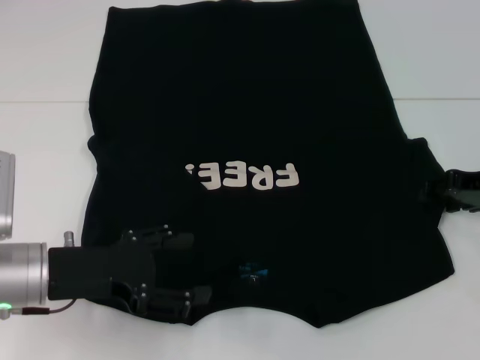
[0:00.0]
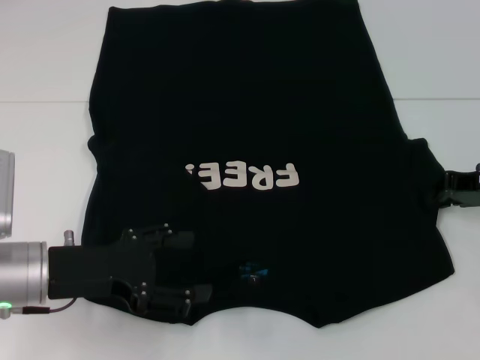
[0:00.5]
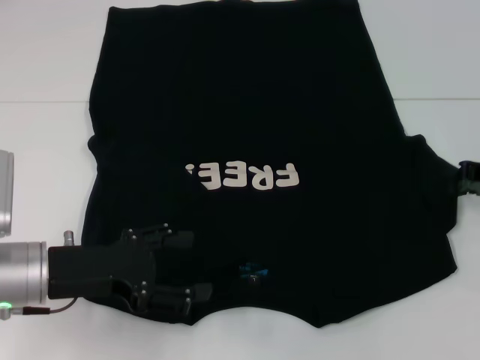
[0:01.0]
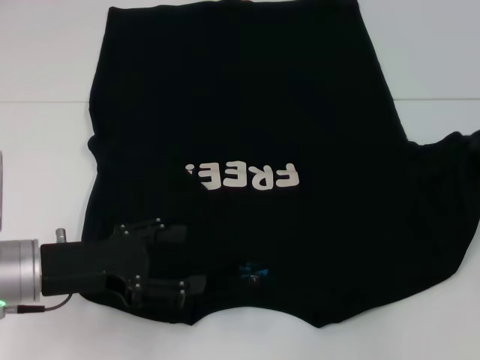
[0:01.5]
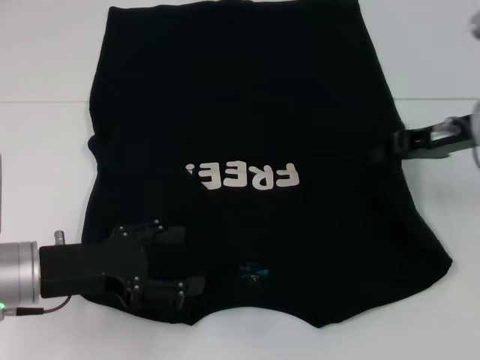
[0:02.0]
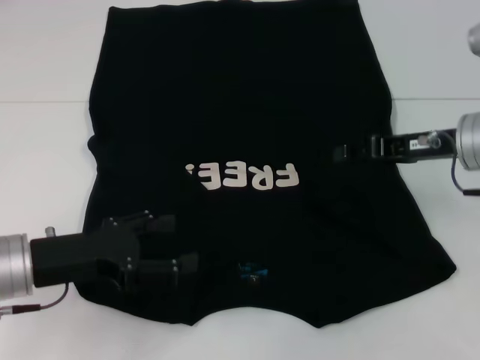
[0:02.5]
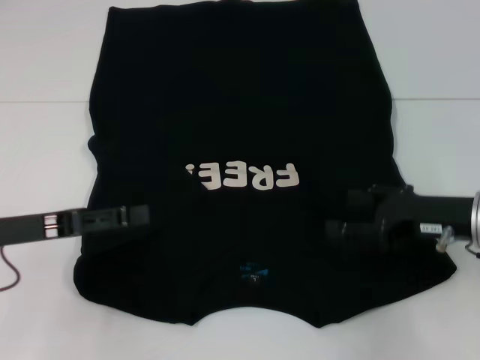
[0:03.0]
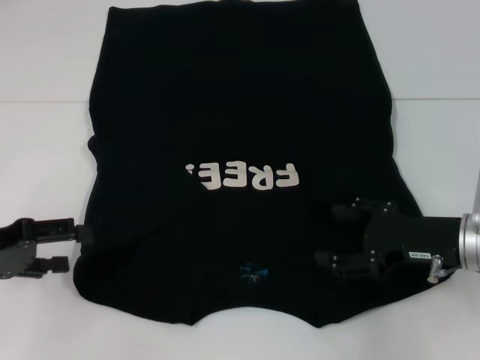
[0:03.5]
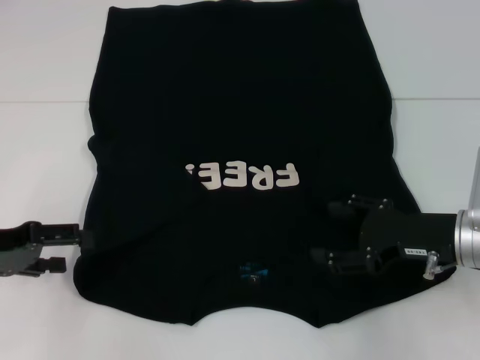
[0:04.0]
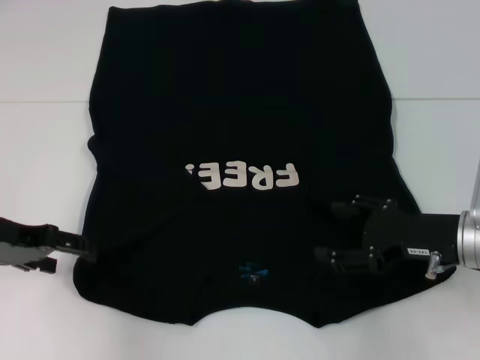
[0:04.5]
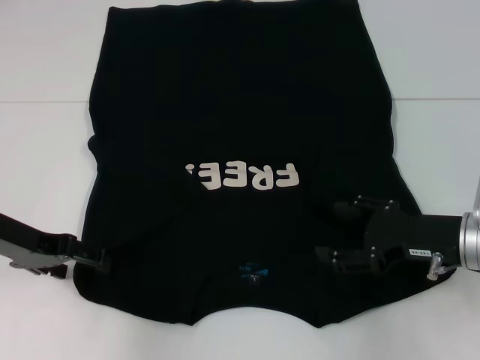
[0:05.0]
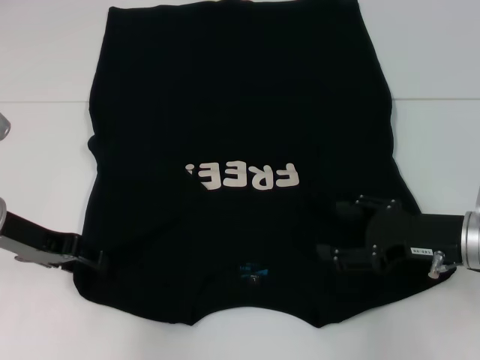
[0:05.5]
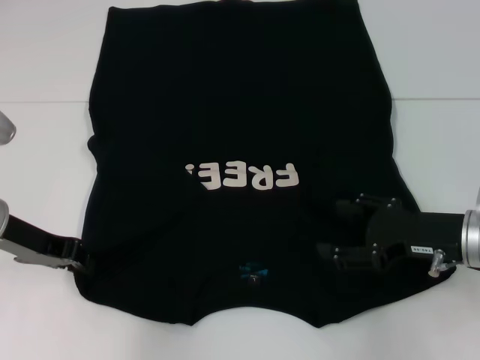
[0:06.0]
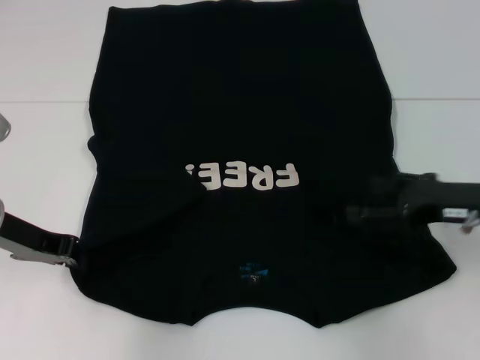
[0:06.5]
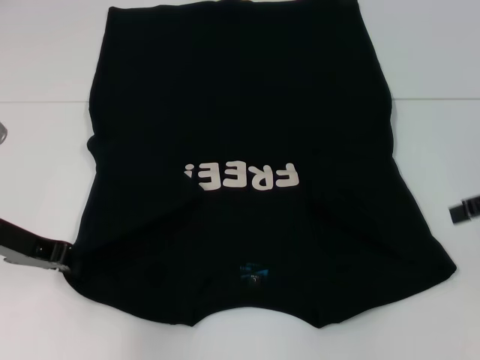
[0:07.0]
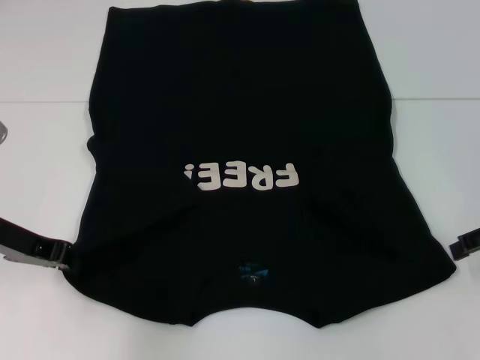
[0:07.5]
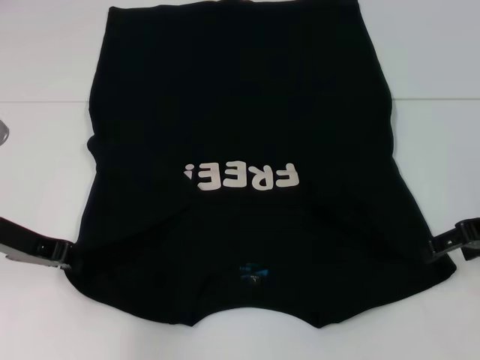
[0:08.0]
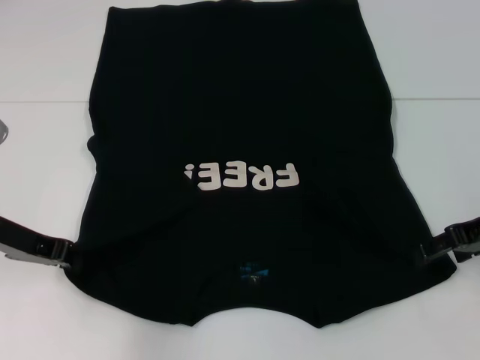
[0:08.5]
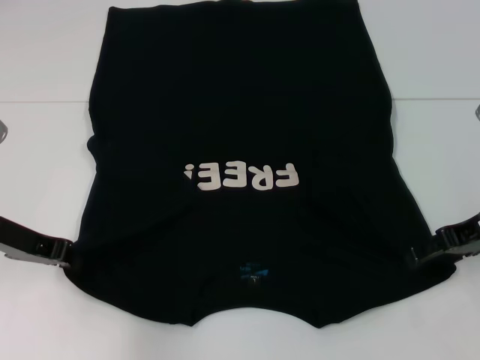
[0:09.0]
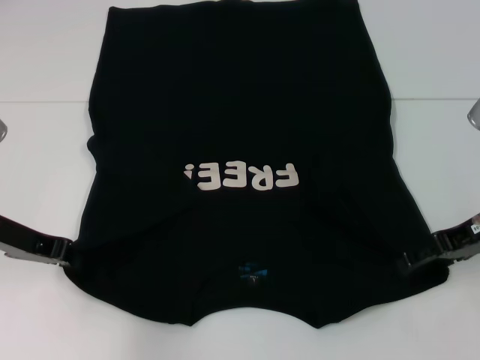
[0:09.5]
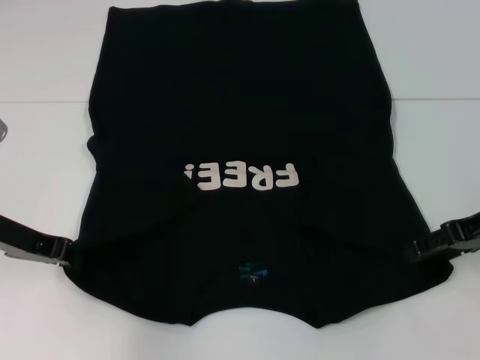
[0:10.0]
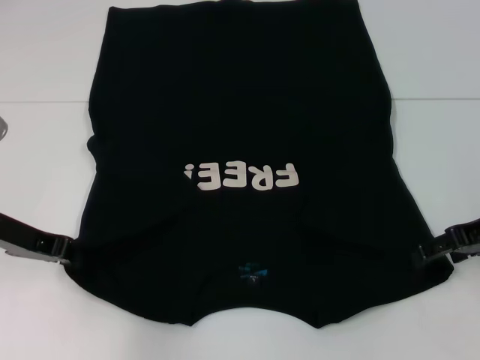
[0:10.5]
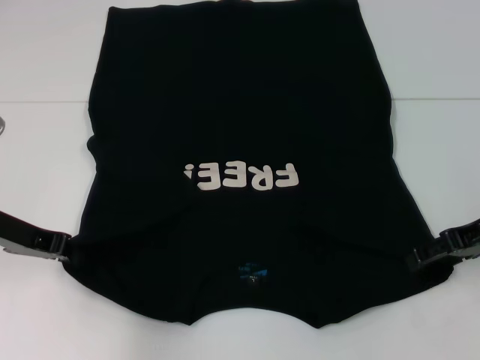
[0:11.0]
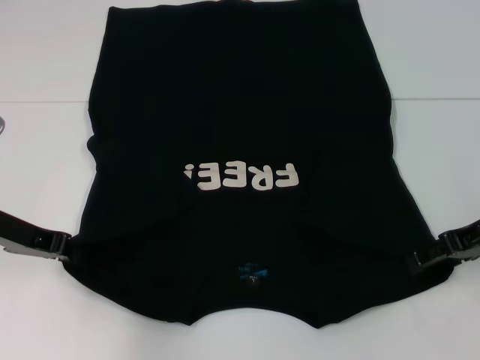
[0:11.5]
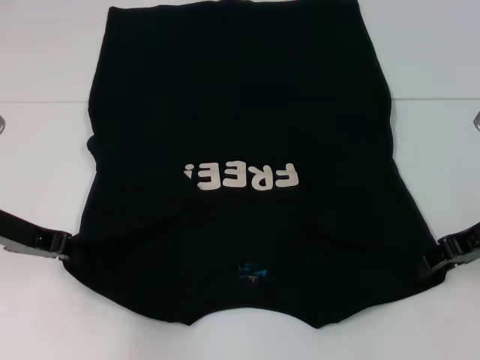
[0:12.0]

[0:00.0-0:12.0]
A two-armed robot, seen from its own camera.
Step, 0:00.0 to 0:02.5: Fold the bottom right sleeve with your right hand.
Step, 0:03.0 to 0:06.0: Grab the bottom left corner with your left hand.
0:00.0 to 0:02.0: The right gripper travels to the left by approximately 5 cm, and closes up.
0:02.0 to 0:04.0: The right gripper is displaced downward and backward by some 10 cm, and opens its fingers; the left gripper shifts approximately 10 cm to the left.
0:04.0 to 0:06.0: The left gripper shifts roughly 5 cm to the right, and closes its fingers.
0:06.0 to 0:08.0: The left gripper closes up, while the right gripper shifts some 10 cm upward and to the right.
0:08.0 to 0:10.0: The grippers stay close to where they were, moving slightly.
0:10.0 to 0:12.0: The right gripper closes.

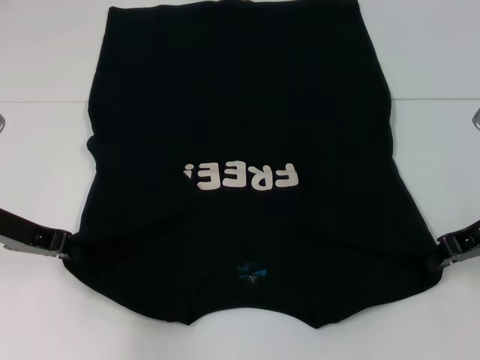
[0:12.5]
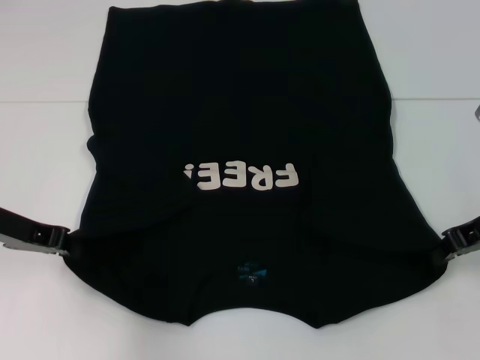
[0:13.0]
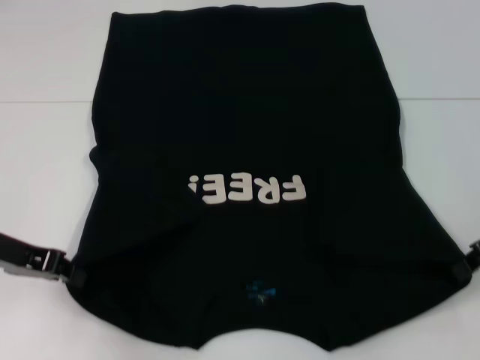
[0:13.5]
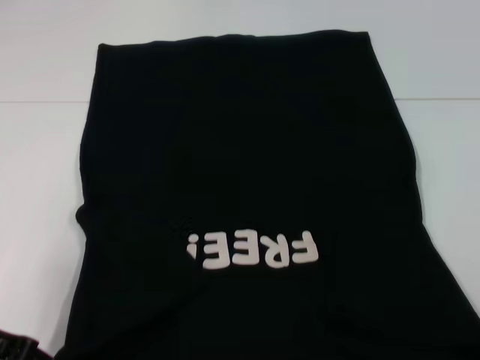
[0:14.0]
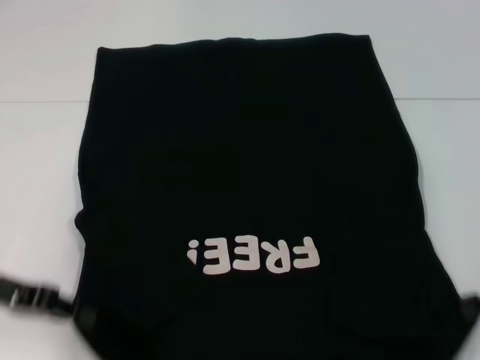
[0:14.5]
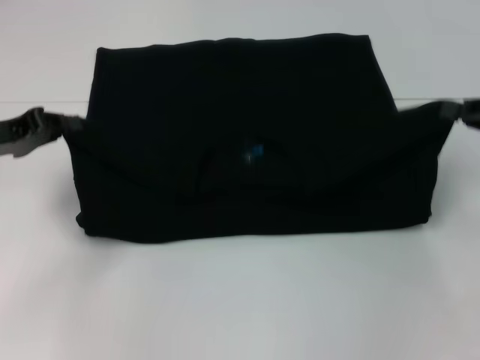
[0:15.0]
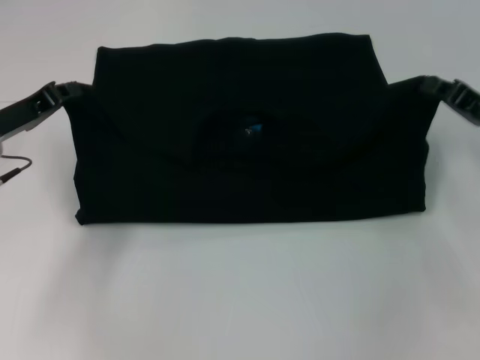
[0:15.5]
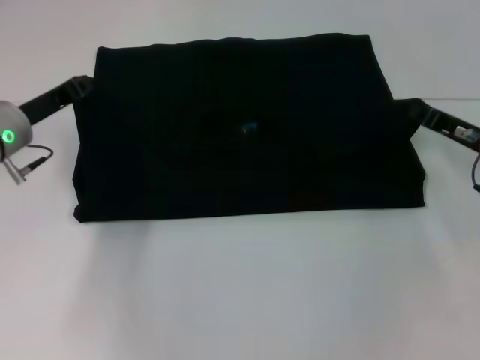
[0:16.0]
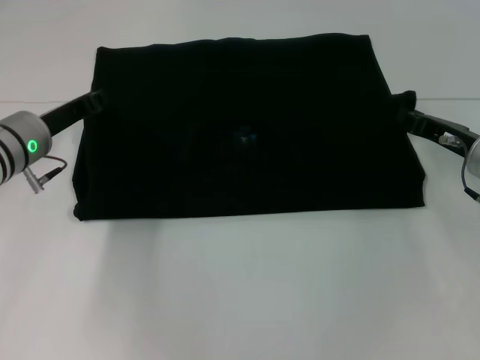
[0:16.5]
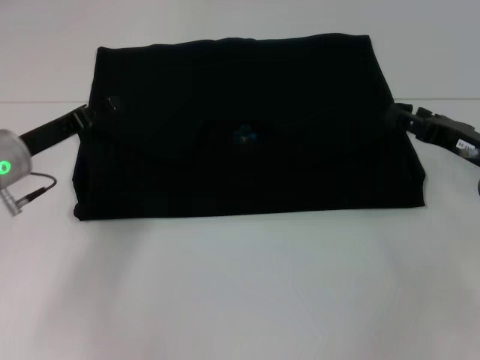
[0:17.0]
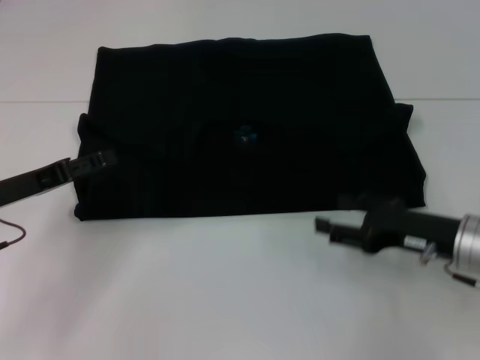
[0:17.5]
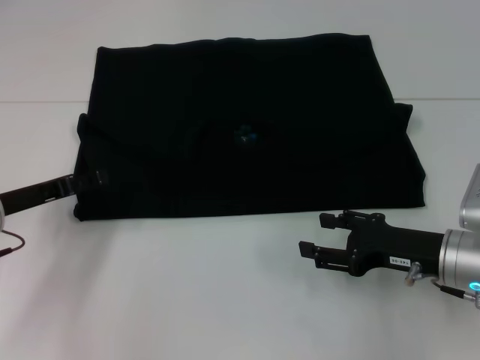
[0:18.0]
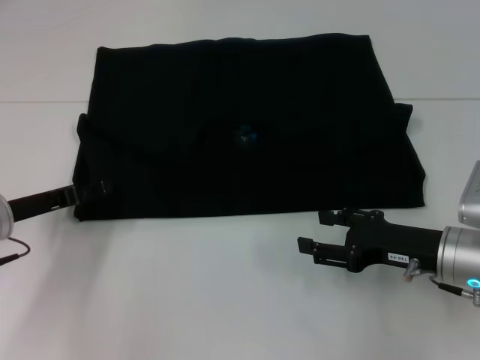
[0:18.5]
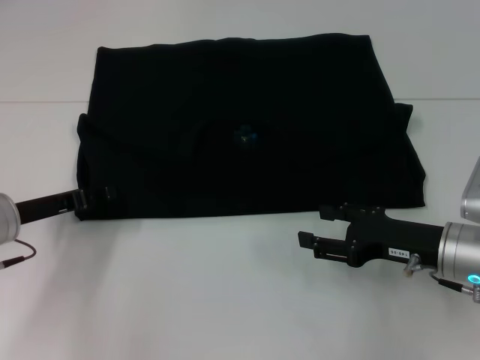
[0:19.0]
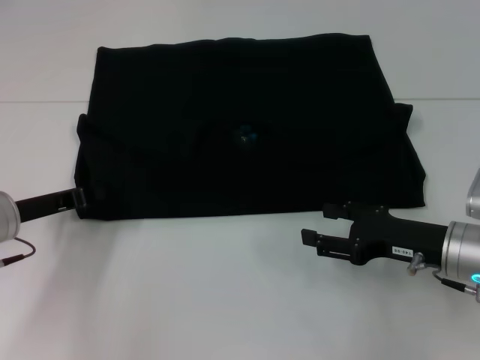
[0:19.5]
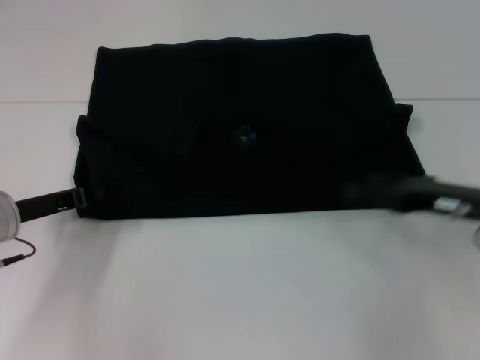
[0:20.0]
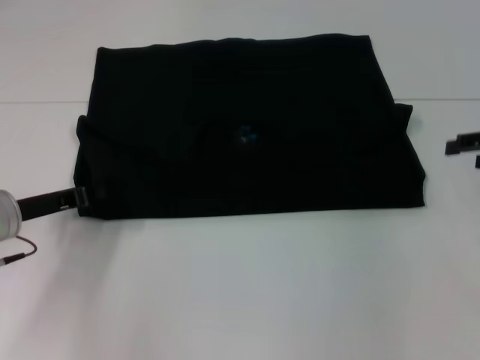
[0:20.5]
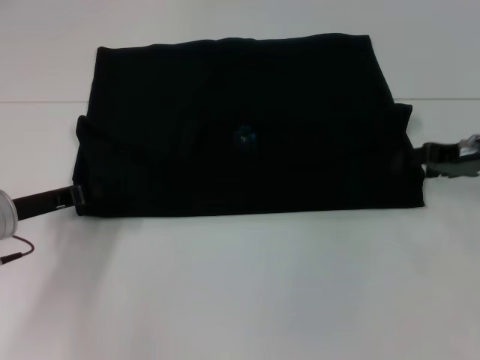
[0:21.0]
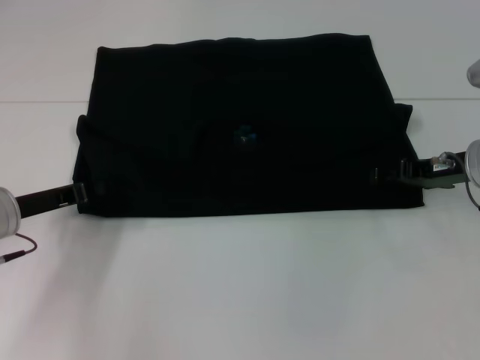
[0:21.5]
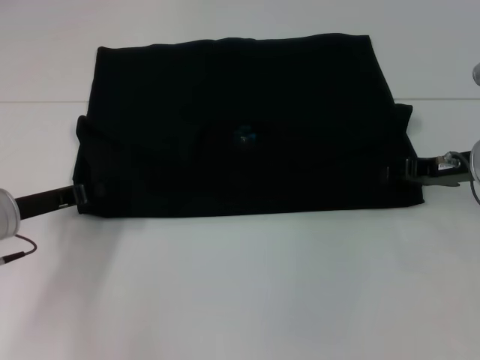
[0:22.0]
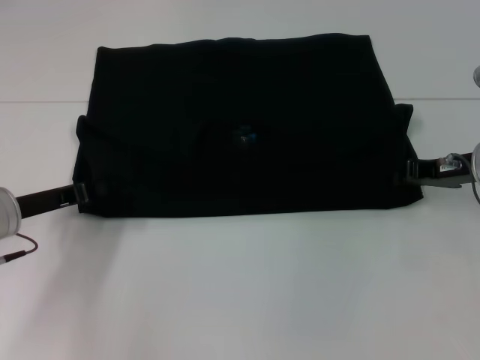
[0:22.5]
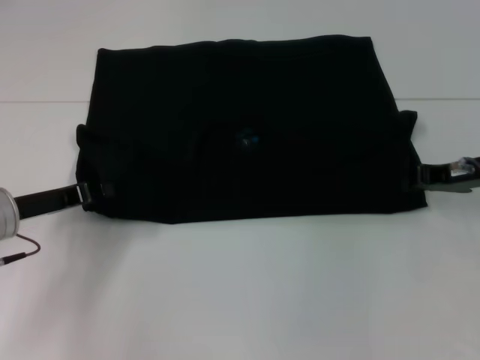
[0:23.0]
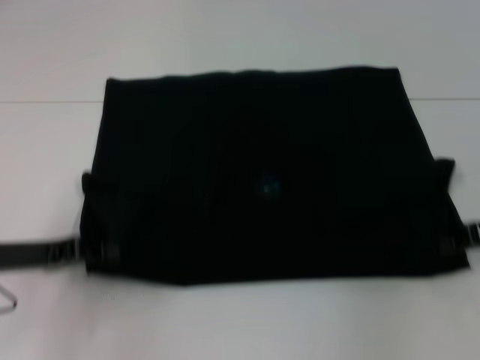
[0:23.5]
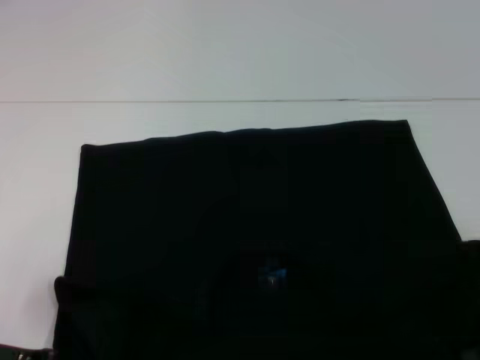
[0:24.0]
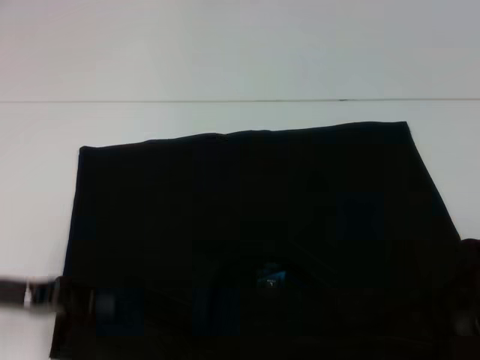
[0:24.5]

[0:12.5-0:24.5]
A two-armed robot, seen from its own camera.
Step, 0:12.5 to 0:16.5: Fold the clothes with your left hand.
Step, 0:12.5 to 0:16.5: Fold the clothes with your right hand.
Step, 0:17.0 to 0:23.5: Pull the clothes with your left hand.
Step, 0:17.0 to 0:23.5: Pull the clothes with your right hand.
0:12.5 to 0:14.5: The left gripper is displaced backward by about 5 cm; the right gripper travels backward and to the right by about 10 cm.
0:14.5 to 0:16.5: The left gripper goes approximately 15 cm forward and to the right, while the right gripper moves forward, to the left and downward, approximately 15 cm.
0:16.5 to 0:18.5: Both grippers move backward, approximately 10 cm. The right gripper opens its fingers, while the left gripper opens up.
0:18.5 to 0:20.5: The left gripper closes. The right gripper shifts approximately 20 cm to the right, upward and forward.
0:20.5 to 0:22.5: The right gripper is displaced to the left and downward by some 10 cm, and closes.
0:22.5 to 0:24.5: The left gripper is displaced backward by approximately 5 cm. The right gripper shifts about 15 cm backward and to the right.

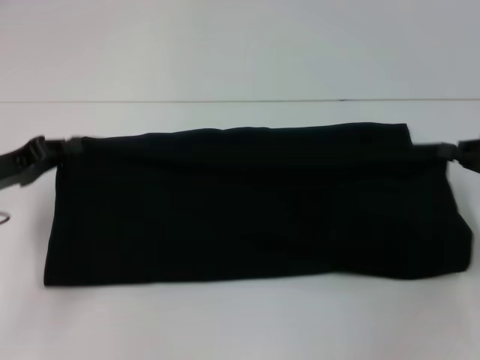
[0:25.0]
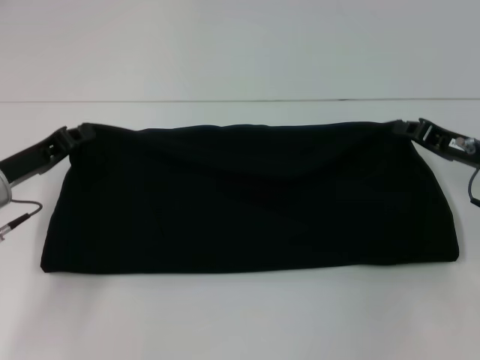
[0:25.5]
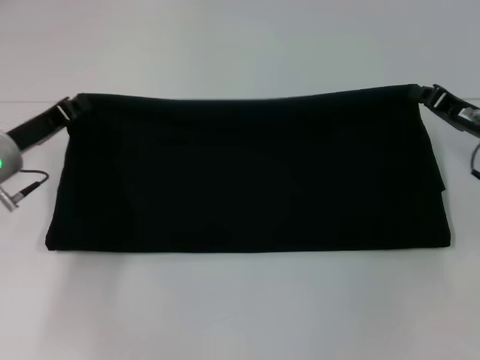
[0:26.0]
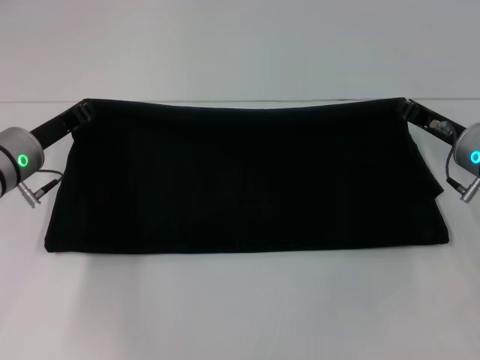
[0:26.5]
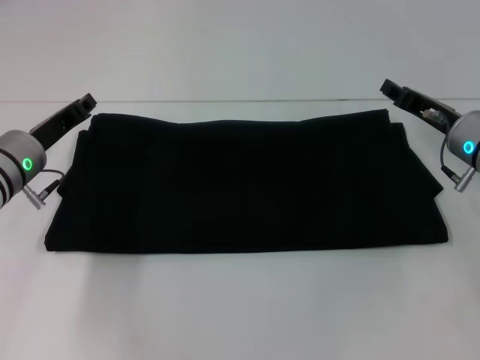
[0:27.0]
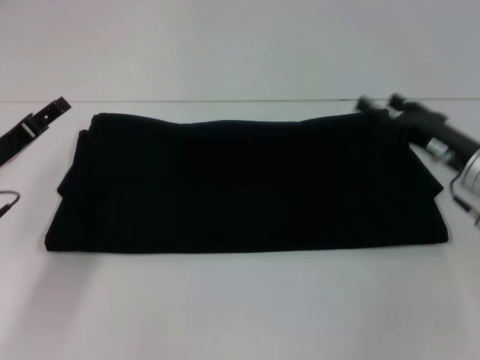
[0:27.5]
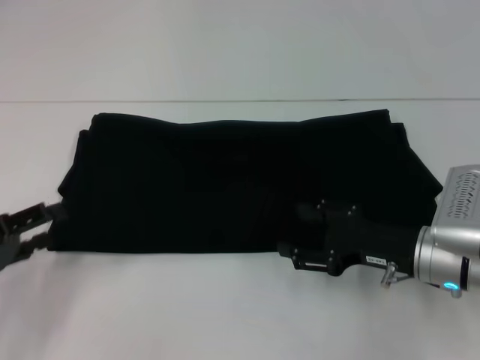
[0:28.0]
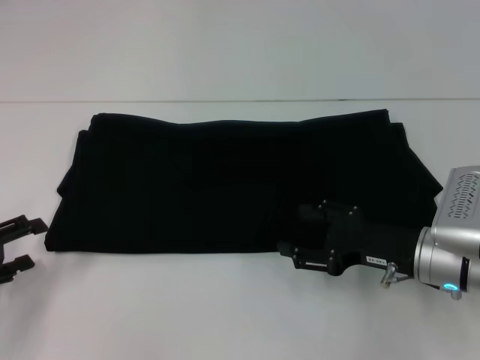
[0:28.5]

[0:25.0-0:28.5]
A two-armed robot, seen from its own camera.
Step, 0:25.0 to 0:27.0: Fold the clothes with your right hand.
0:25.0 to 0:27.0: The right gripper travels to the left and forward by roughly 10 cm; the left gripper is displaced to the right and forward by roughly 10 cm.
0:27.0 to 0:28.5: The right gripper shifts about 10 cm backward, and opens up. The left gripper shifts about 20 cm backward and to the left, and opens up.
